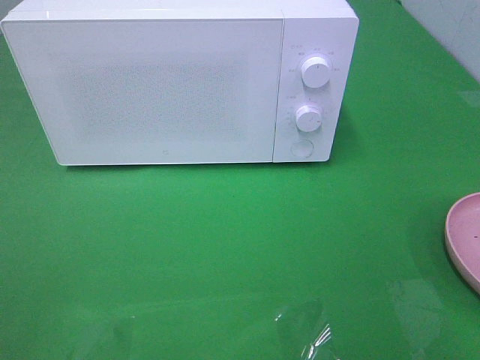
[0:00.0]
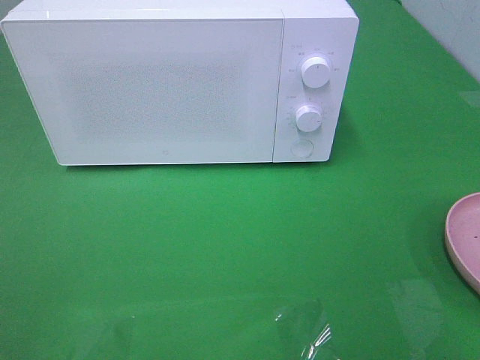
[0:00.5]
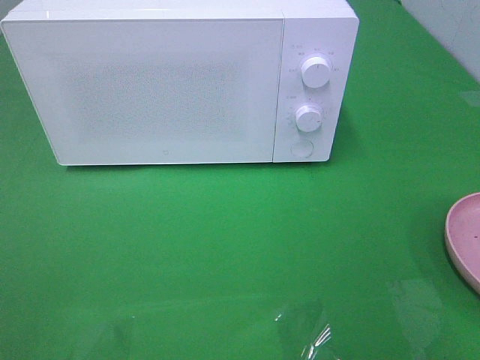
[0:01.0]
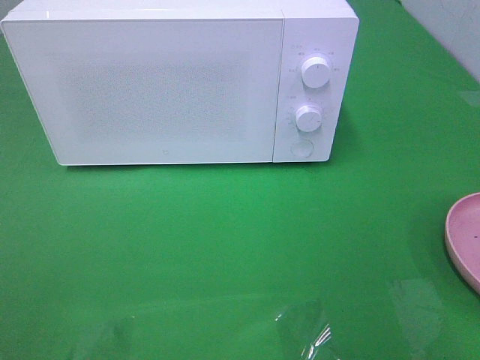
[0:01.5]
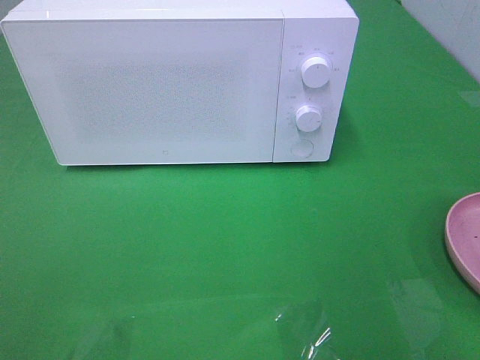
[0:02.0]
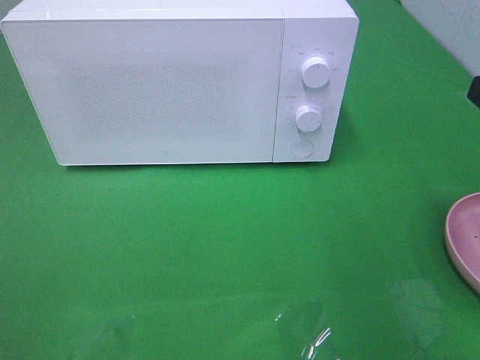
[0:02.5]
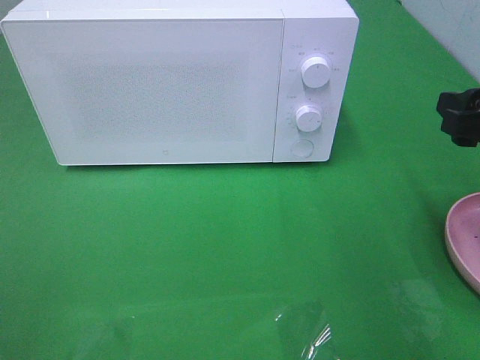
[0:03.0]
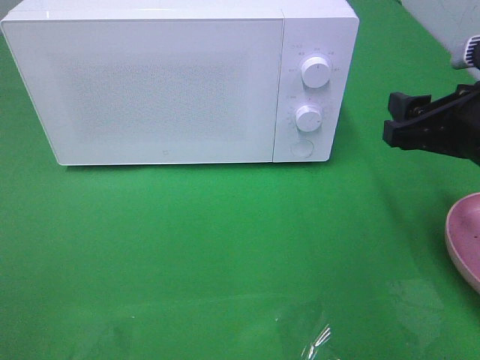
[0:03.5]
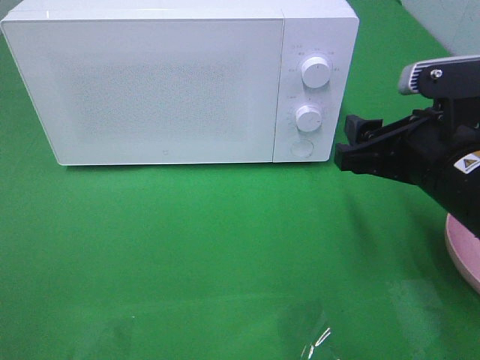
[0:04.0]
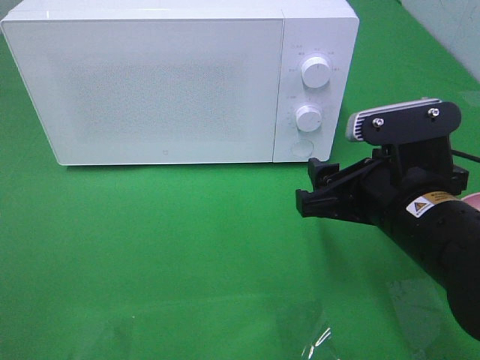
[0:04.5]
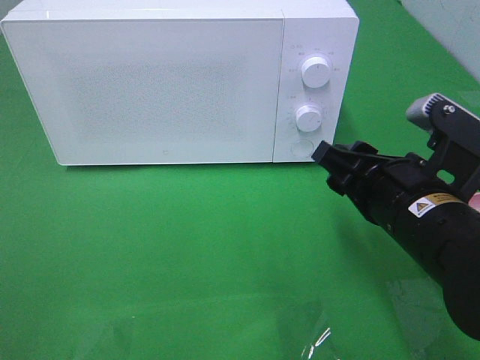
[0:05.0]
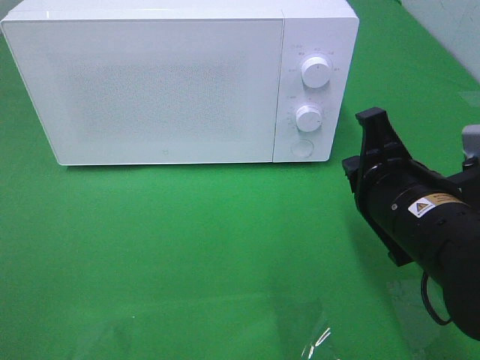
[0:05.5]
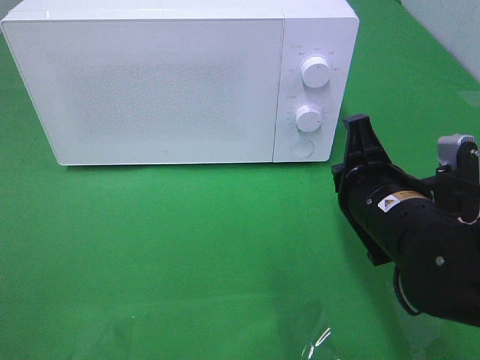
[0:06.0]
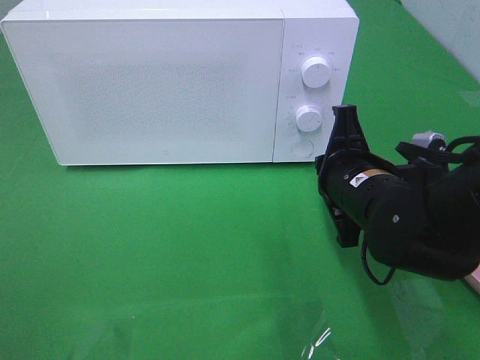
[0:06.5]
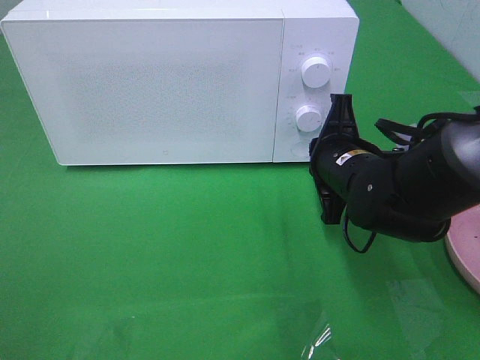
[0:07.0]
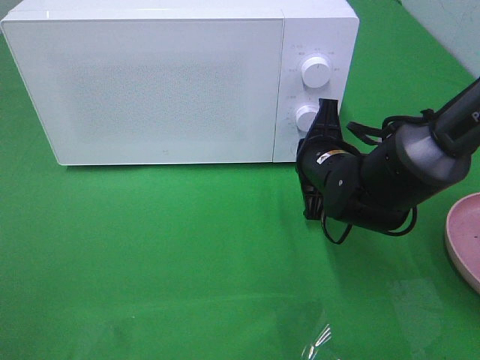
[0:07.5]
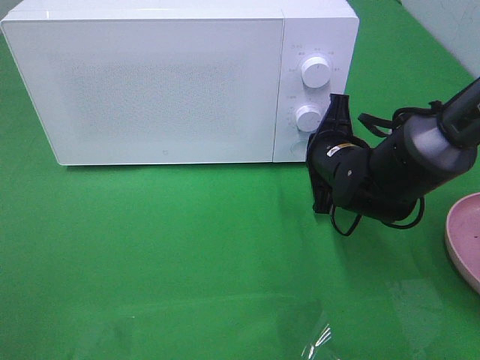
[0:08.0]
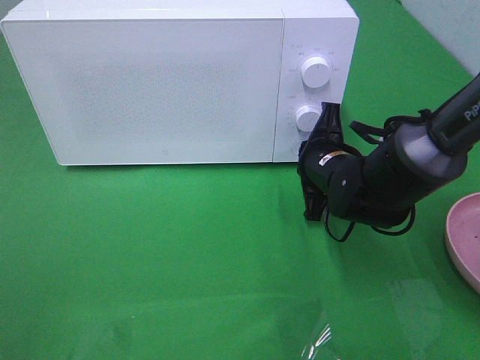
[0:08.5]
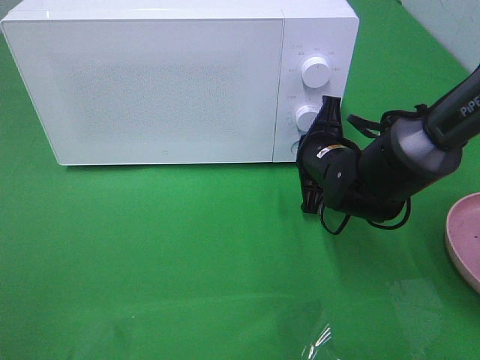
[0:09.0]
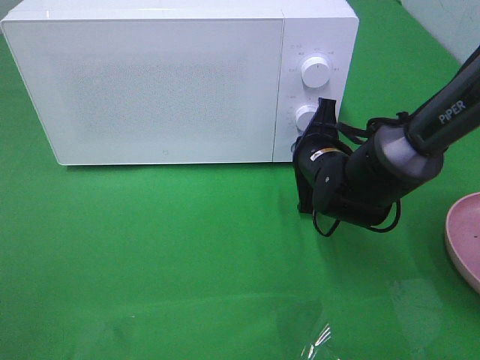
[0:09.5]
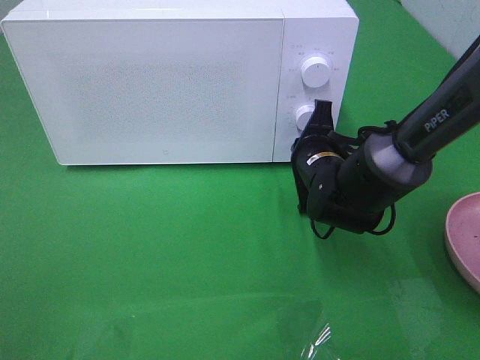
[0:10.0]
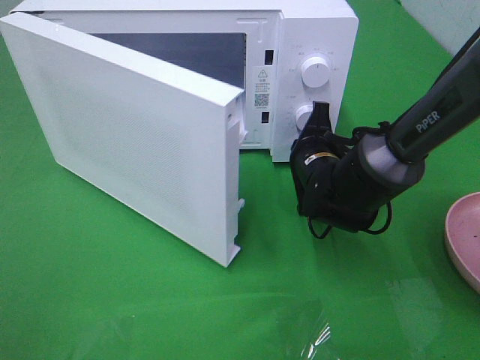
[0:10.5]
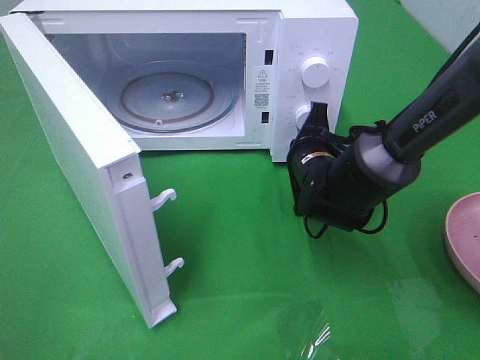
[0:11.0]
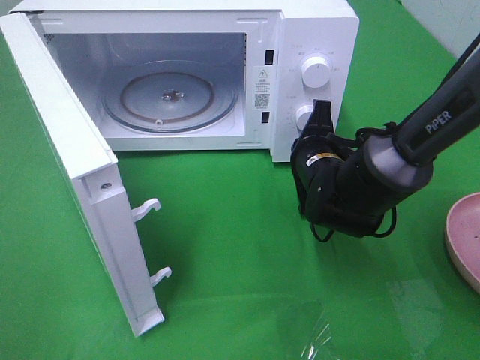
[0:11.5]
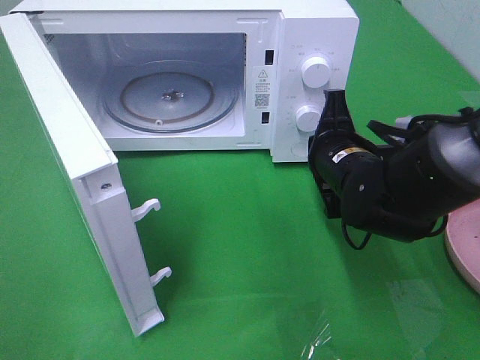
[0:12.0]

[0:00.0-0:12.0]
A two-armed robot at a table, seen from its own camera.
Task of the whole recording: Heat the burger.
0:02.0 to 0:04.0: The right gripper travels downward, to the left and forward by some 15 cm.
0:04.0 to 0:06.0: The right gripper changes place by some 5 cm, and closes.
0:06.0 to 0:08.0: The right gripper shifts approximately 15 cm forward and downward.
0:08.0 to 0:10.0: The grippers stay close to where they were, moving slightly.
0:10.0 to 0:12.0: The right gripper changes place by about 5 cm.

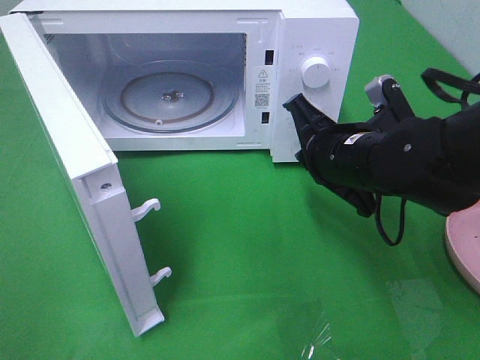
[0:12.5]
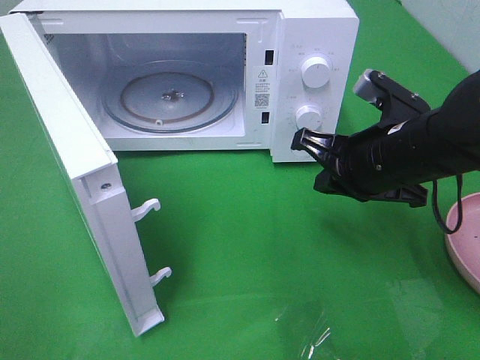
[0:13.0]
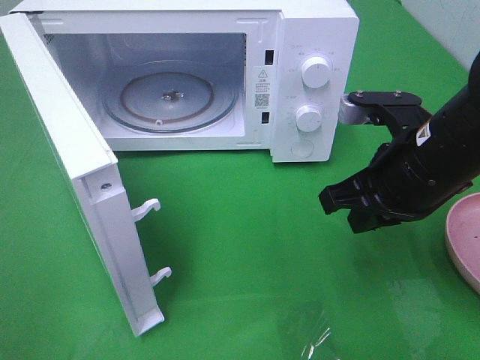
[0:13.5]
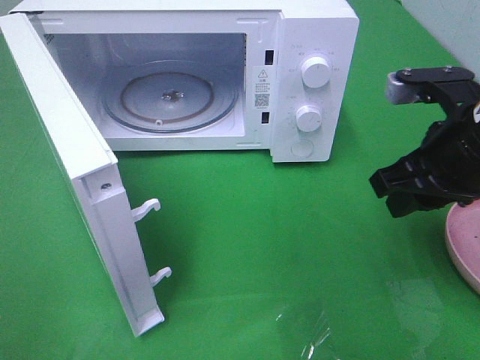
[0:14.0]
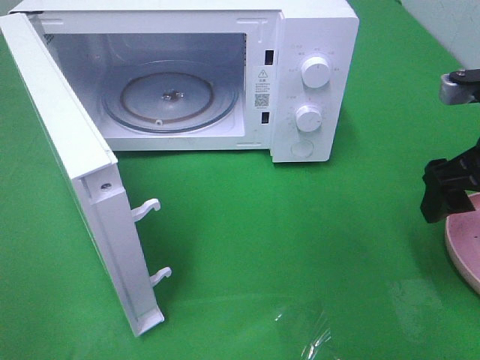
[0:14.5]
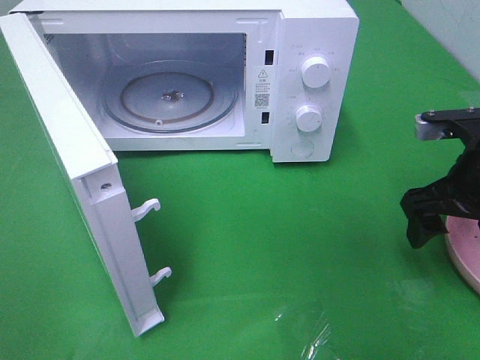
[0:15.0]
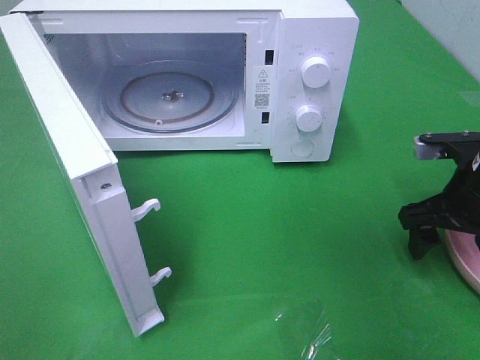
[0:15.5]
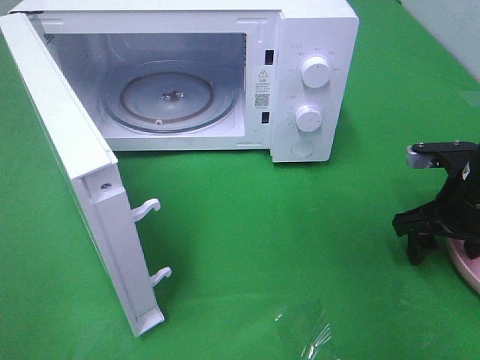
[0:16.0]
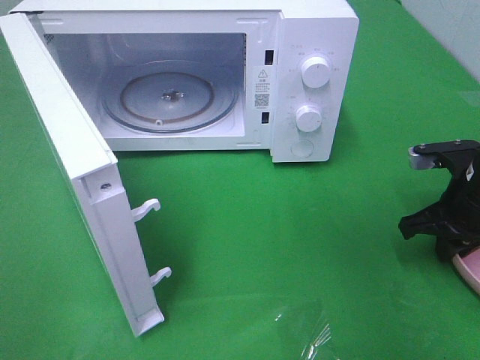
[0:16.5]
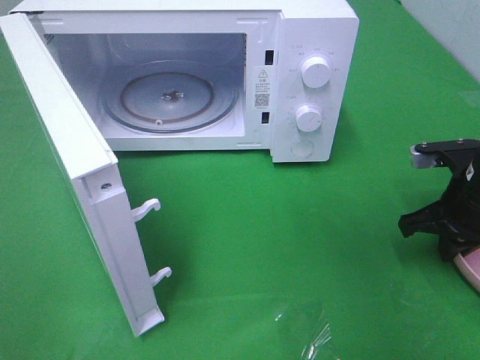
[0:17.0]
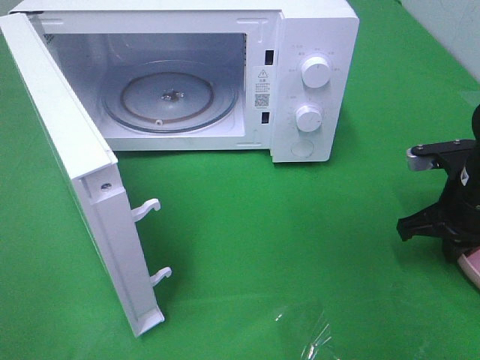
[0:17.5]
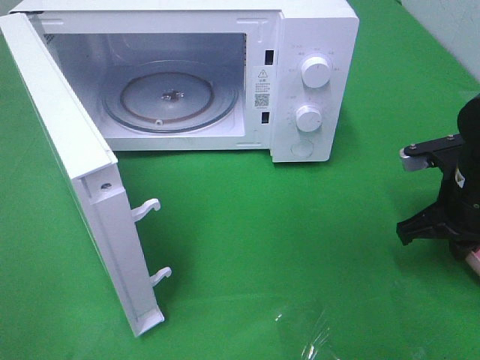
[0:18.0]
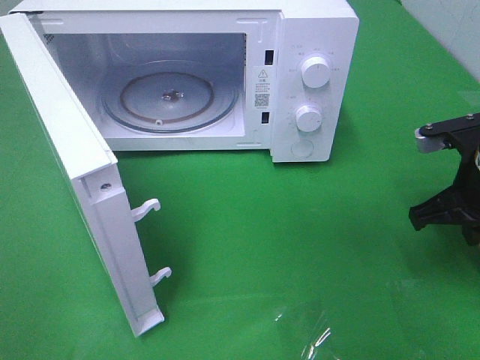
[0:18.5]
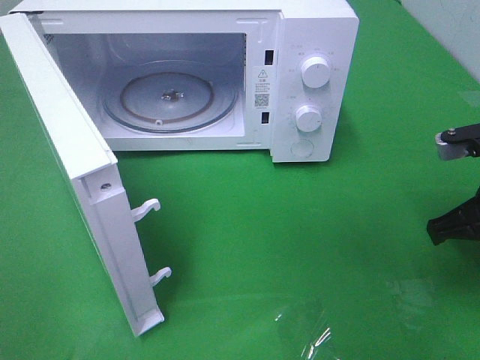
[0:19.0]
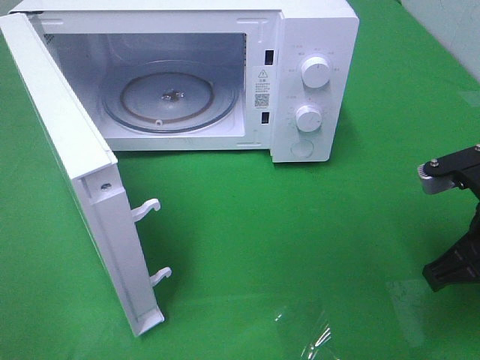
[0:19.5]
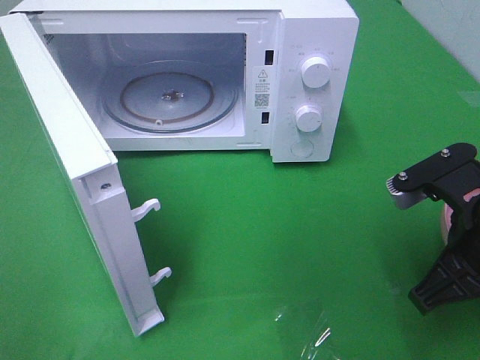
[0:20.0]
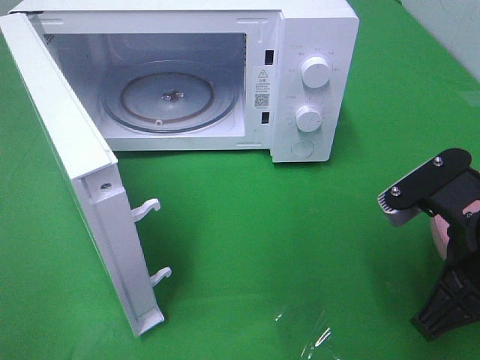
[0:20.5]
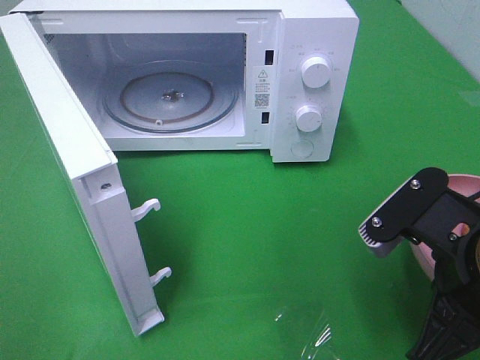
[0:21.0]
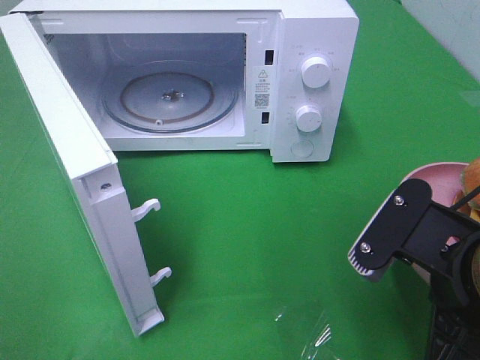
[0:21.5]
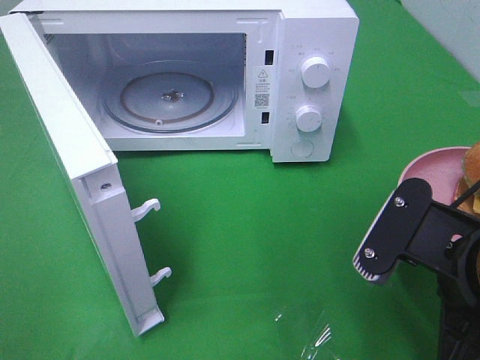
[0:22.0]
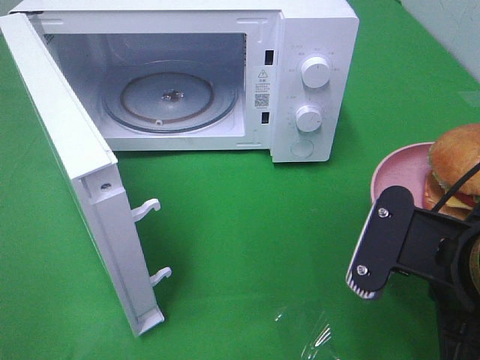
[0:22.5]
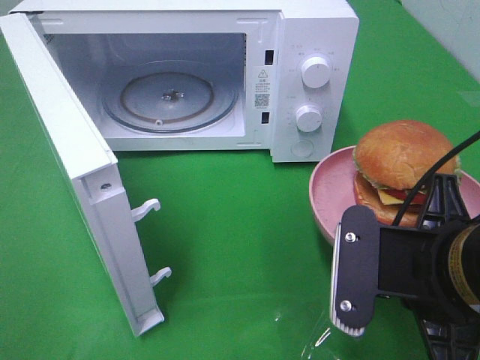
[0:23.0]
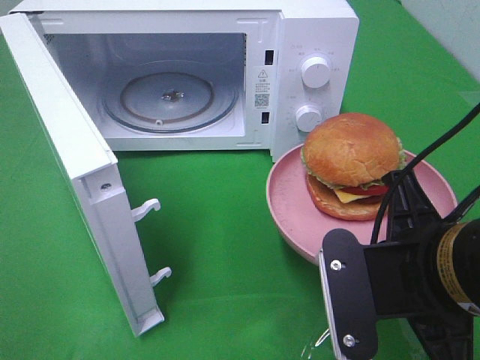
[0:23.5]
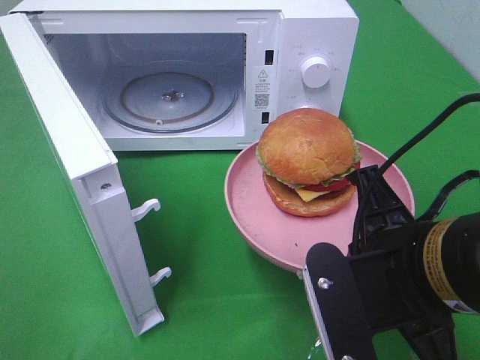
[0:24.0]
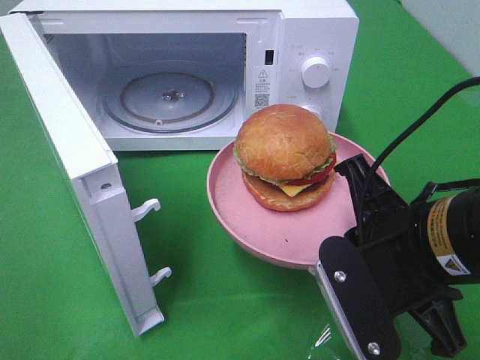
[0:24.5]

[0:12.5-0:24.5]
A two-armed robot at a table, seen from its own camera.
Task of the whole recording: Heat the burger.
Step, 0:12.5 to 0:18.0: Right hand: grab the plate with the hamburger.
0:12.5 to 0:14.5: The right gripper heads to the right and upward, covering about 15 cm, and opens up.
0:14.5 to 0:16.5: The right gripper goes some 10 cm downward, and closes up.
0:16.5 to 0:18.5: The right gripper shifts by about 5 cm.
0:18.5 to 0:20.5: The right gripper goes approximately 15 cm backward and to the left.

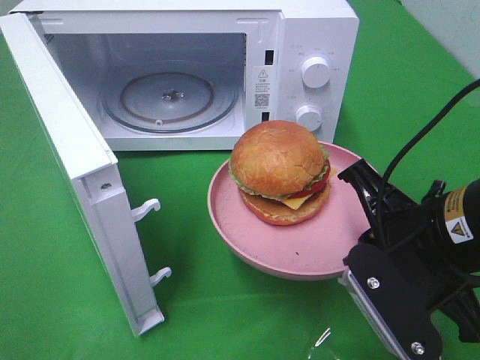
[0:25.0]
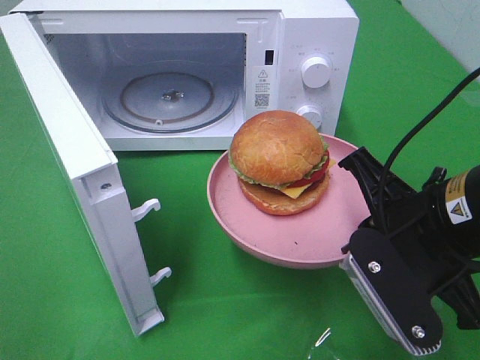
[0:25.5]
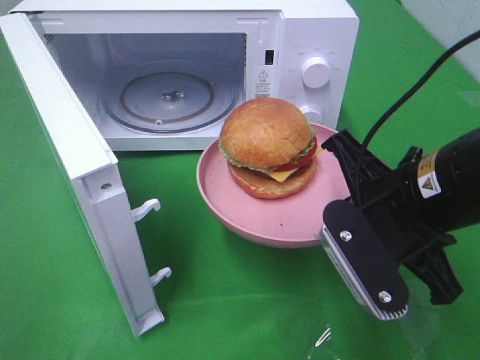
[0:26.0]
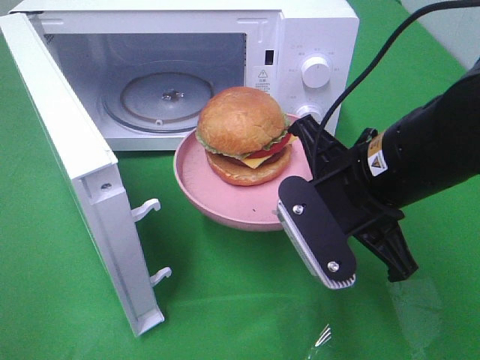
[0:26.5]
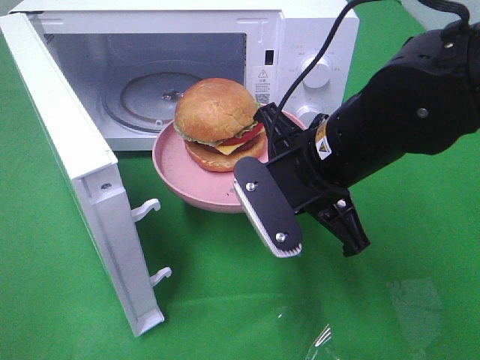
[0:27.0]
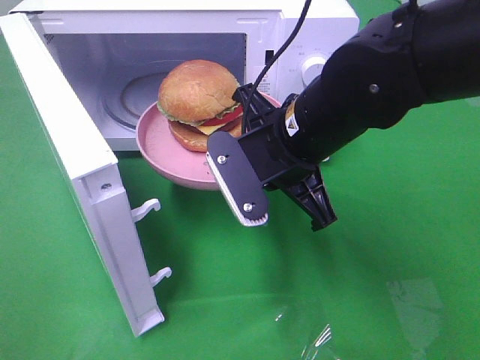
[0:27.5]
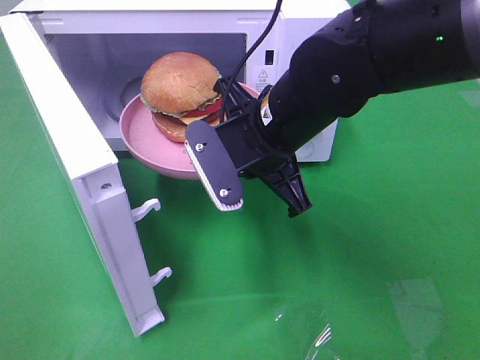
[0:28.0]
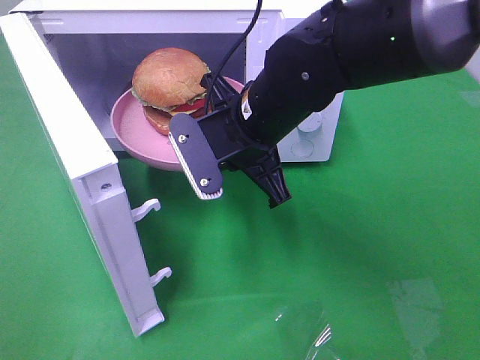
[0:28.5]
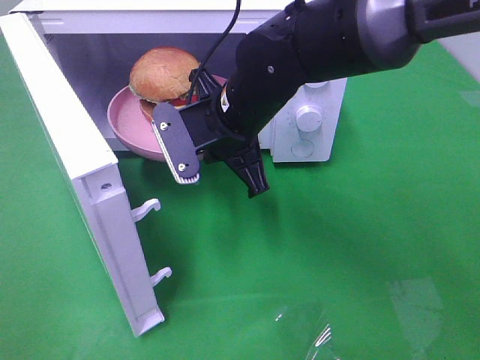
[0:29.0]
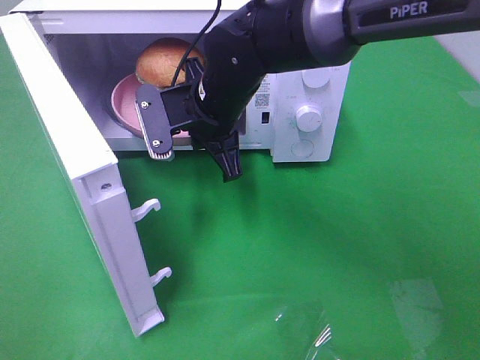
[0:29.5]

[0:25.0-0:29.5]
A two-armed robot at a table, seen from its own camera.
Task of the whole recording: Heat the burger.
0:25.0 to 0:27.0: The right gripper is displaced to the left and forward by roughly 10 cm.
0:27.0 to 0:29.5: The right gripper travels forward and to the left by approximately 15 cm.
